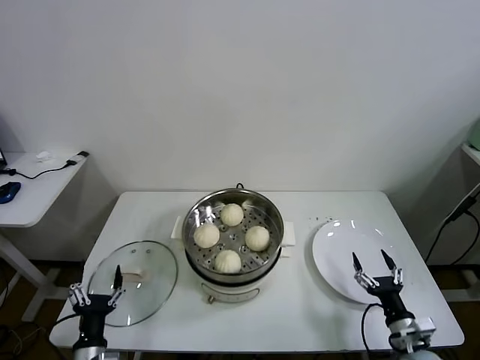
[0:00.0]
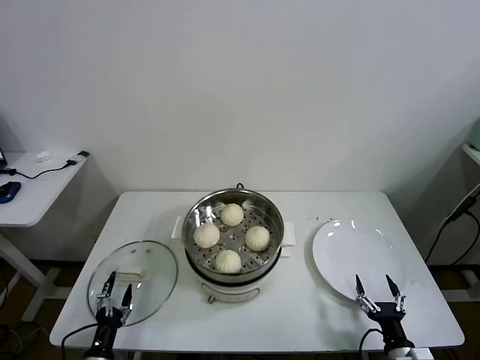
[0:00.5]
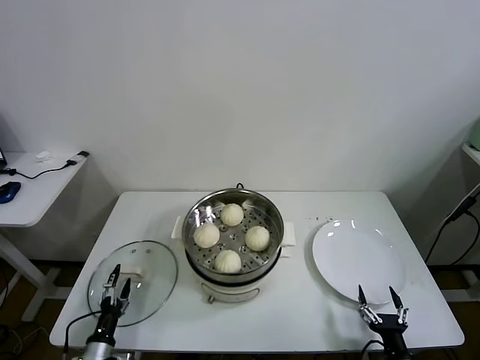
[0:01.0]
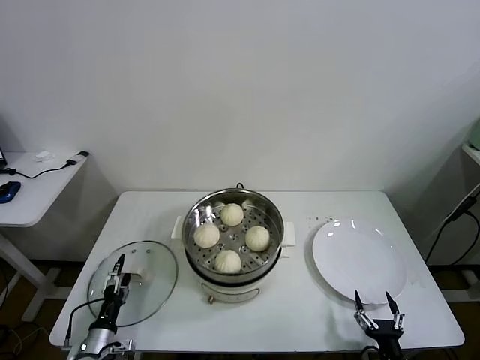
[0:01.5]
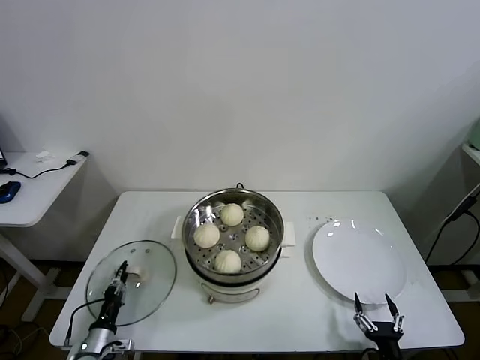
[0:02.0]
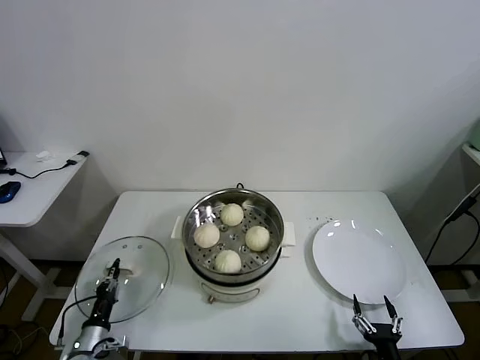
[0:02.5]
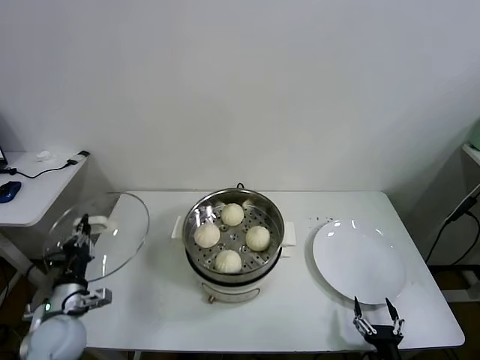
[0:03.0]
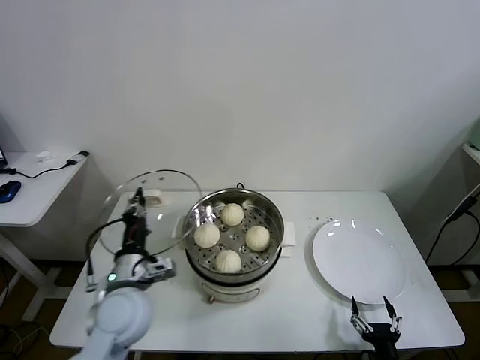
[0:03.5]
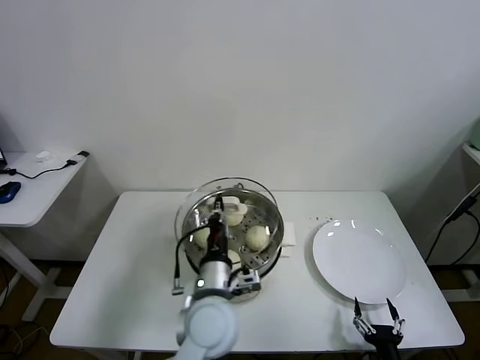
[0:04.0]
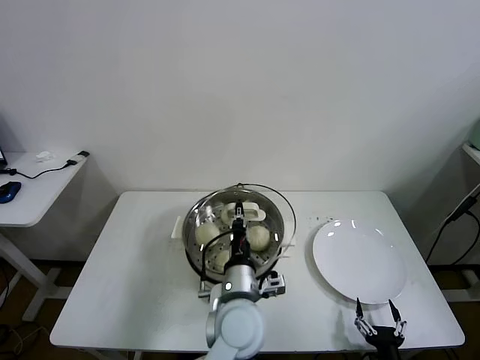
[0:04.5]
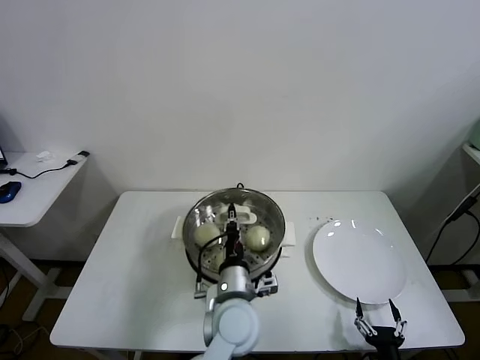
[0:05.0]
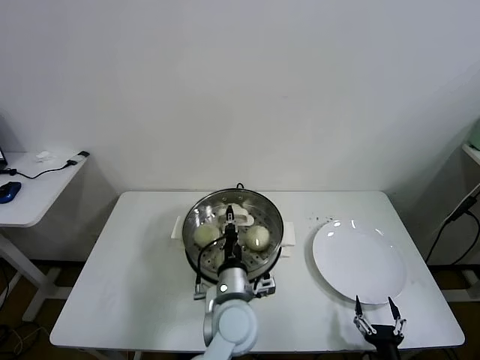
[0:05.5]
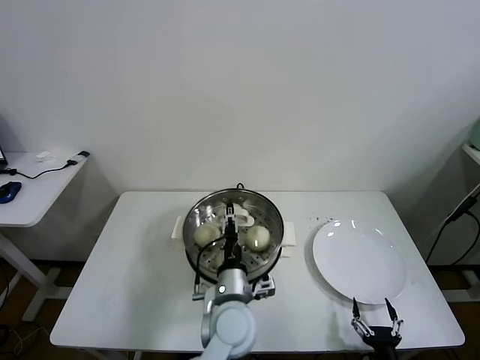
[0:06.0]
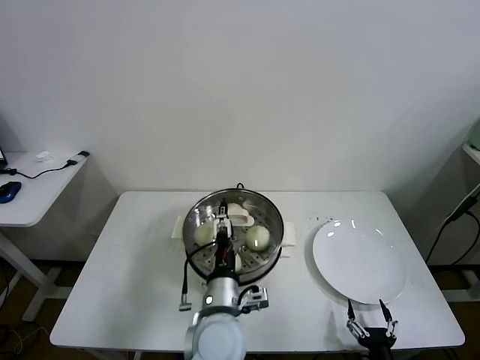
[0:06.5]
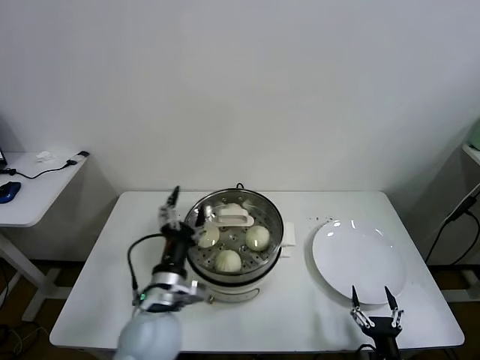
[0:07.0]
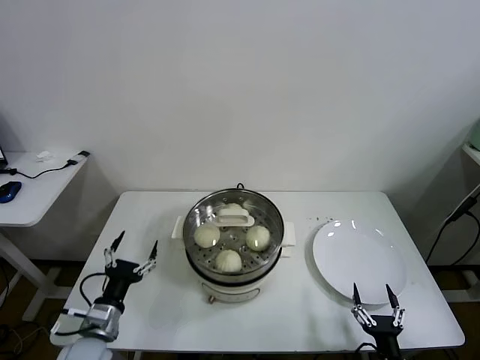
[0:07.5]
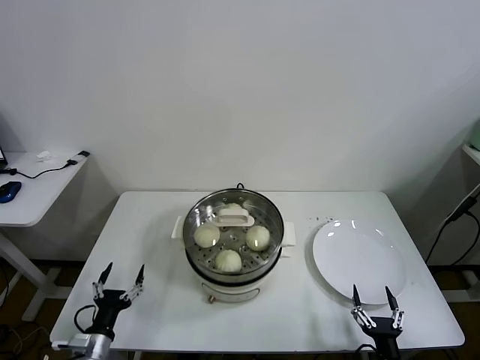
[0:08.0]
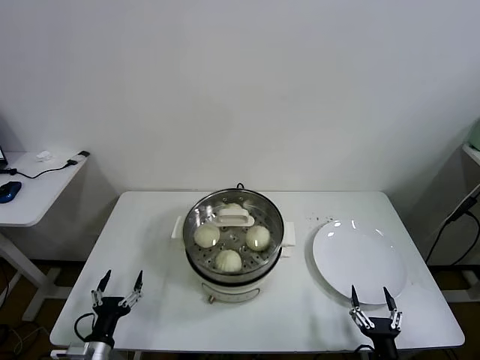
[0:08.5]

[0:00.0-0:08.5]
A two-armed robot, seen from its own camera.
Task of the whole recording: take steamed baozi put them in steamer.
Step, 0:00.0 to 0:02.0: Grasp the pot lid with left gripper.
Step, 0:02.5 to 0:06.0: Place the pot lid on the steamer with left gripper.
0:00.0 to 0:02.0: The right gripper travels backward and downward by some 10 cm, while the left gripper is displaced downward, to the left and forward by roughly 10 cm, and closes.
0:02.0 to 0:04.0: The left gripper is displaced to the right and upward by approximately 40 cm.
0:04.0 to 0:06.5: The left gripper opens its fingers.
0:06.5 to 0:08.5: The left gripper is displaced to the left and downward by roughly 35 cm.

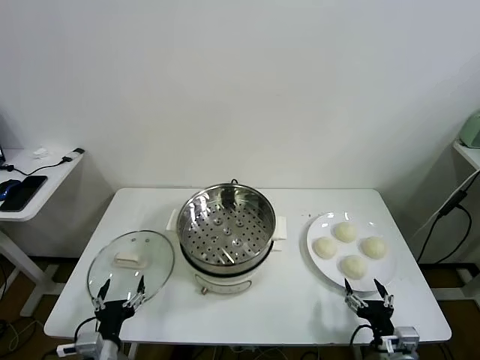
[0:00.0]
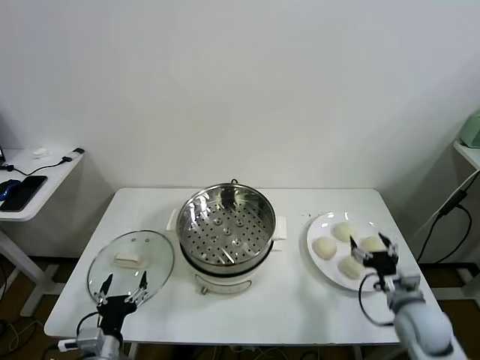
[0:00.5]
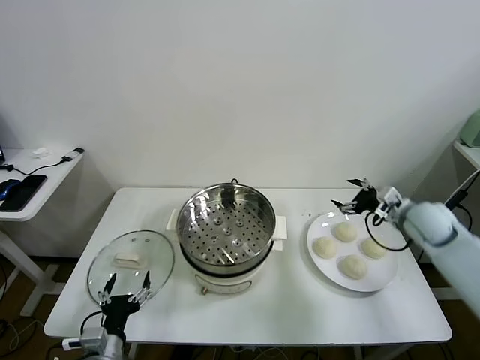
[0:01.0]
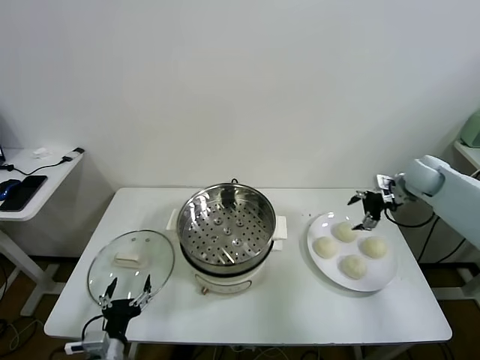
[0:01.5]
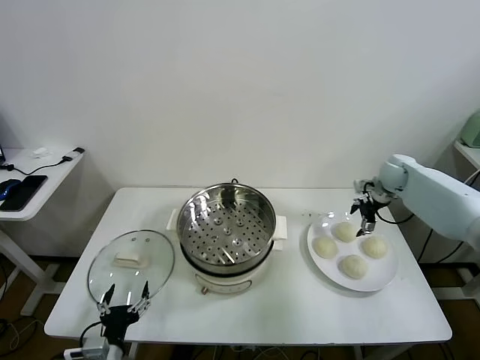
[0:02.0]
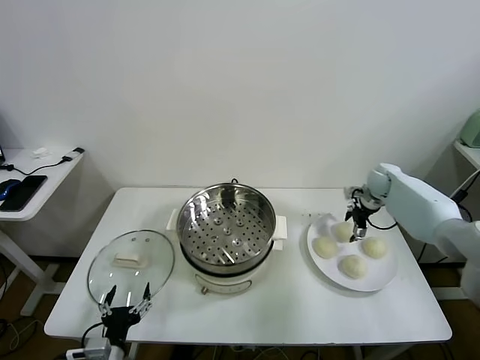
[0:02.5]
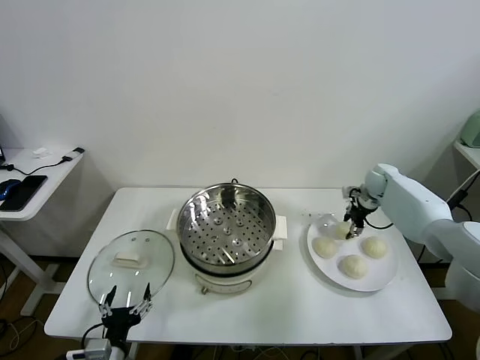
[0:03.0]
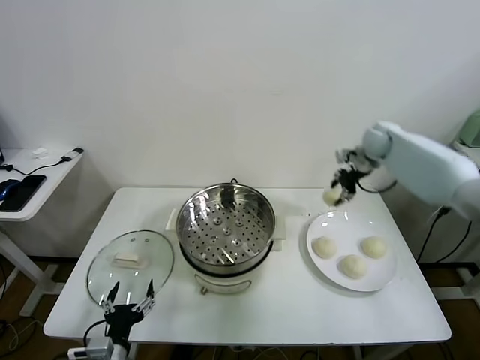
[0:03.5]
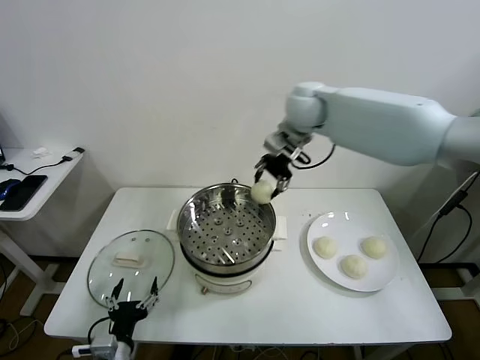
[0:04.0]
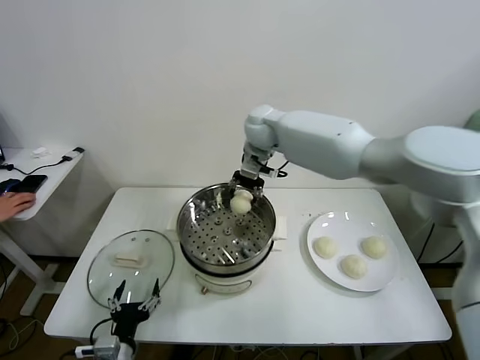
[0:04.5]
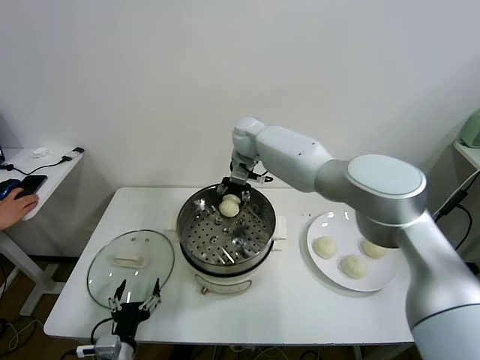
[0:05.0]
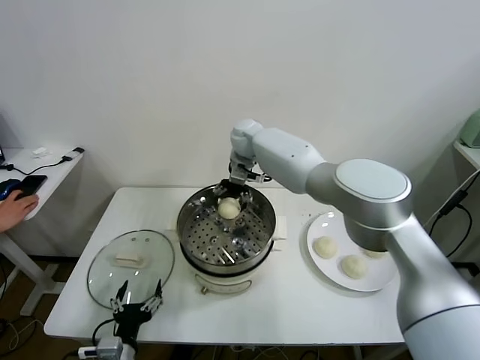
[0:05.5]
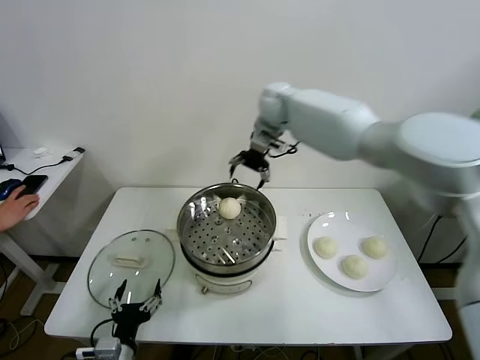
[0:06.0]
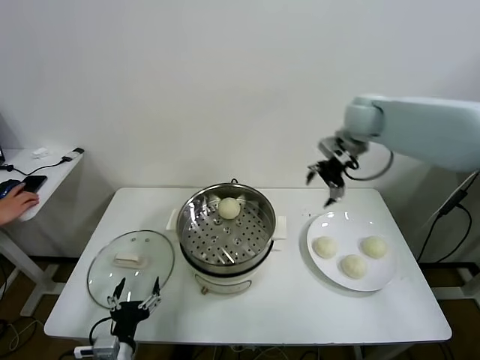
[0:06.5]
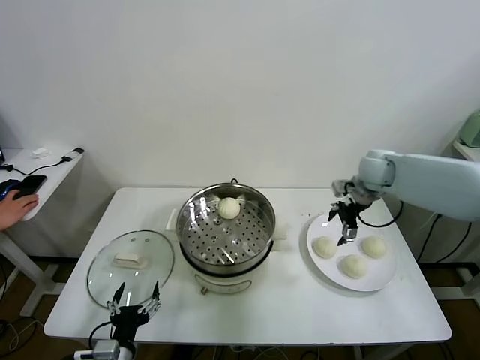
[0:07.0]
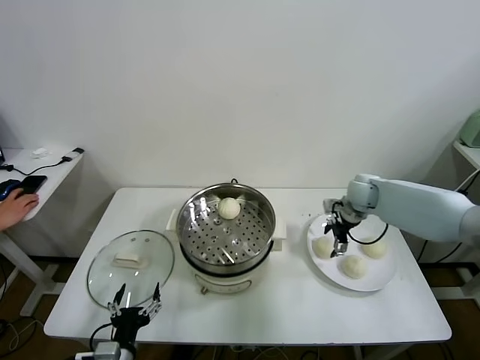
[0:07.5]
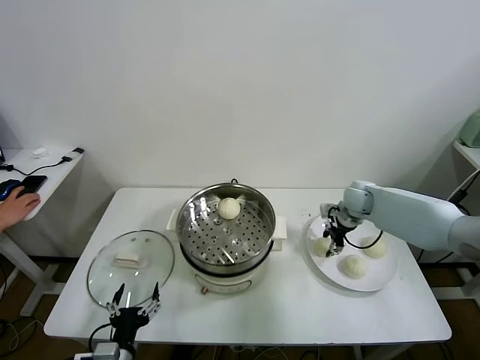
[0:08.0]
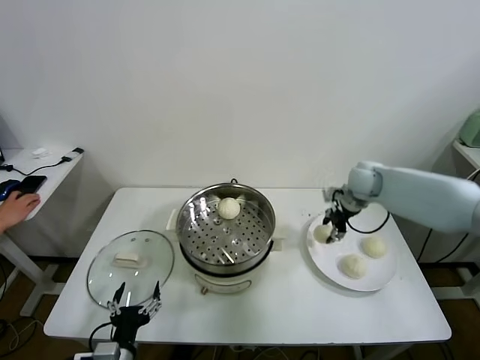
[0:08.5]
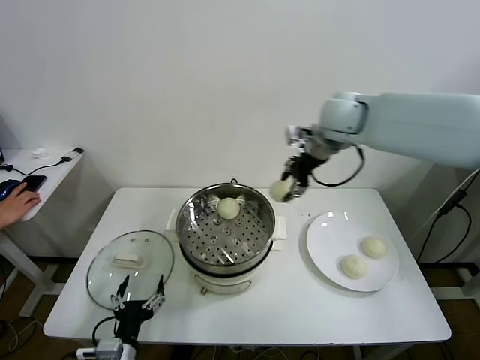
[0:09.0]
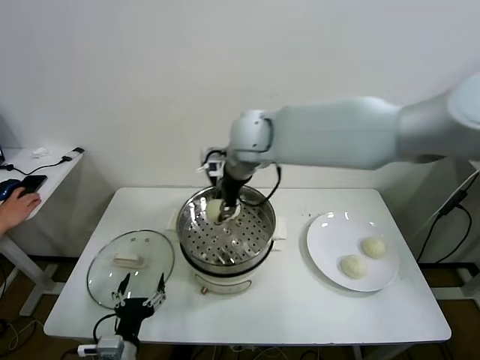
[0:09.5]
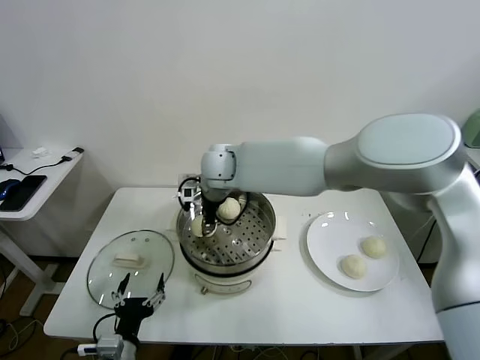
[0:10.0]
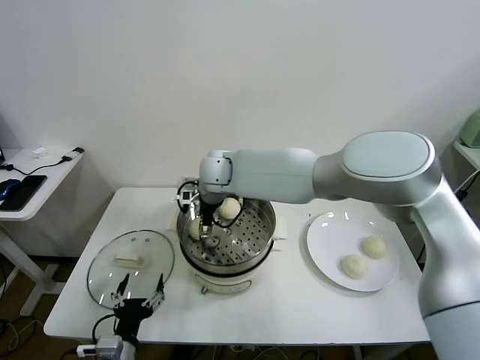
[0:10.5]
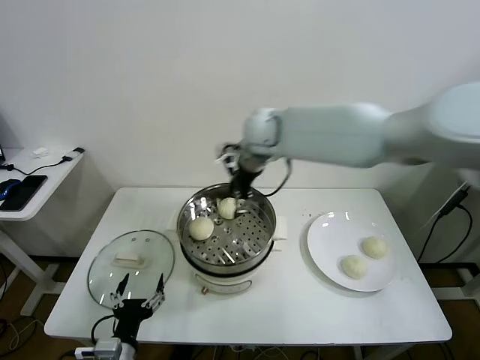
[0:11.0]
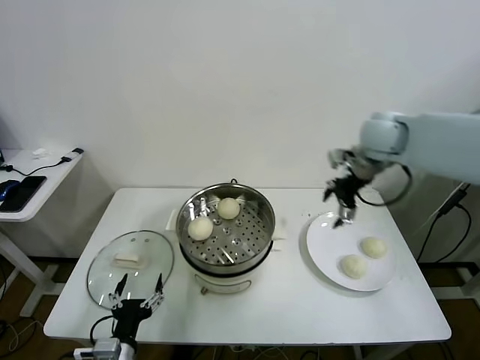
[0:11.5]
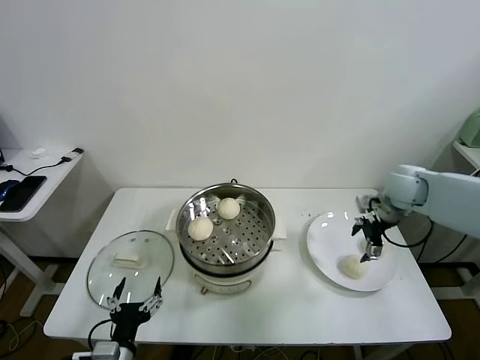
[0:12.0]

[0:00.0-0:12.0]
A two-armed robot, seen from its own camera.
Task of the whole recording: take steamed baozi put them in steamer.
Step, 0:00.0 to 0:02.5: Grasp the baozi in the plate with right gripper.
Step, 0:03.0 to 0:05.5: Place the baozi on the steamer with right gripper.
Step, 0:06.0 to 0:07.5: Grasp the baozi in the plate with right gripper.
Step, 0:08.0 to 0:10.5: Place the baozi on the steamer with right gripper.
0:02.0 to 0:04.0: The right gripper shifts roughly 35 cm to the left and upward, and closes up.
0:04.0 to 0:06.0: The right gripper travels forward by some 5 cm, travels downward and back again, about 10 cm each way, and opens.
0:06.0 to 0:08.0: The right gripper shifts roughly 30 cm downward and to the right, and closes up.
0:08.0 to 0:10.0: The right gripper shifts about 35 cm to the left.
0:10.0 to 0:12.0: The right gripper travels to the right by some 40 cm, and opens.

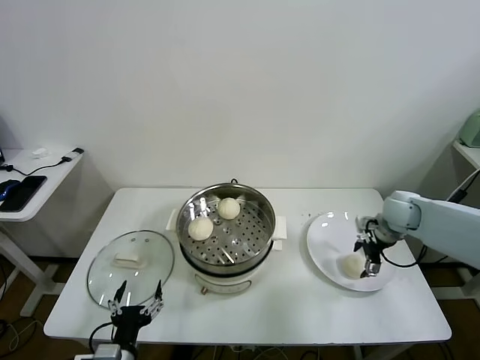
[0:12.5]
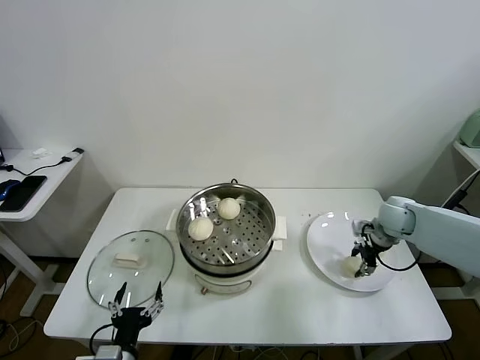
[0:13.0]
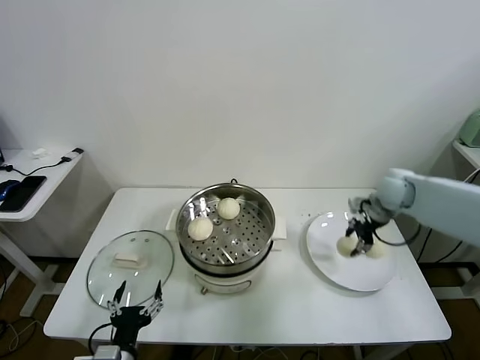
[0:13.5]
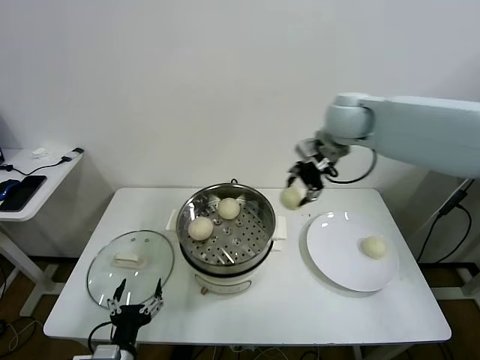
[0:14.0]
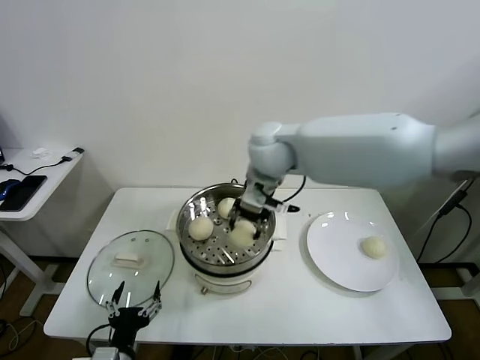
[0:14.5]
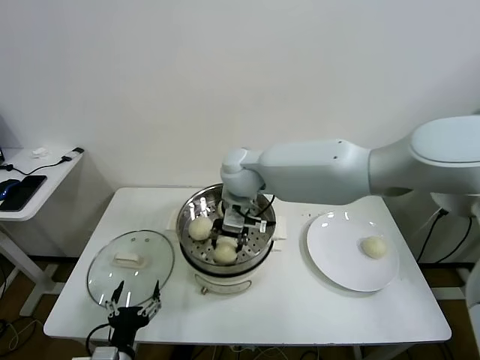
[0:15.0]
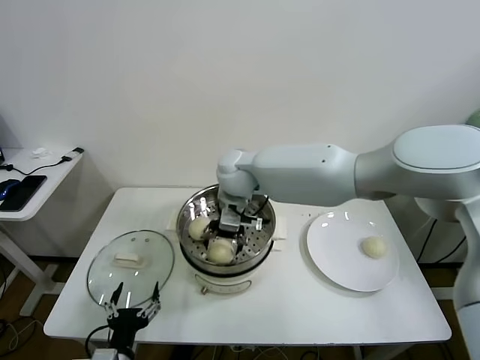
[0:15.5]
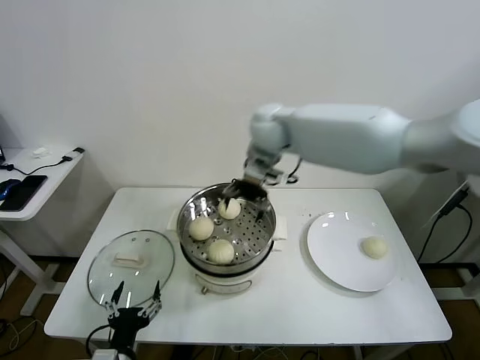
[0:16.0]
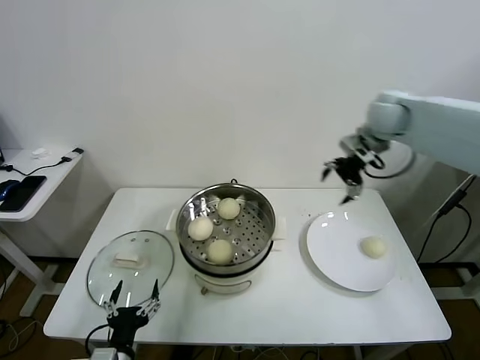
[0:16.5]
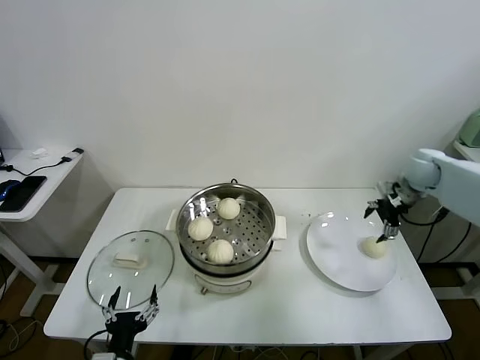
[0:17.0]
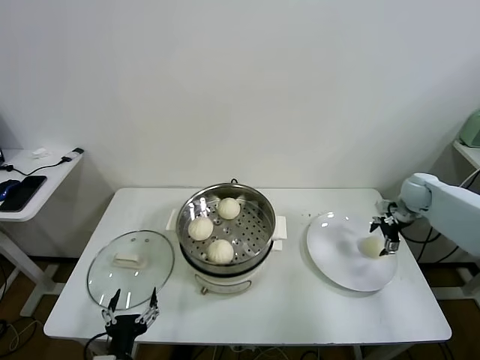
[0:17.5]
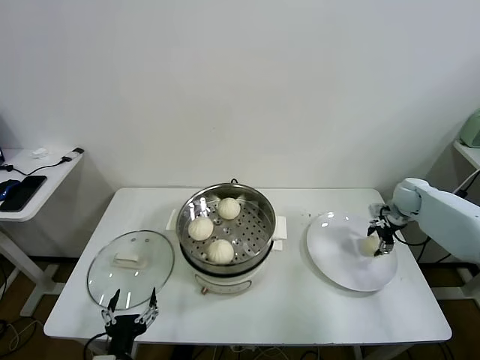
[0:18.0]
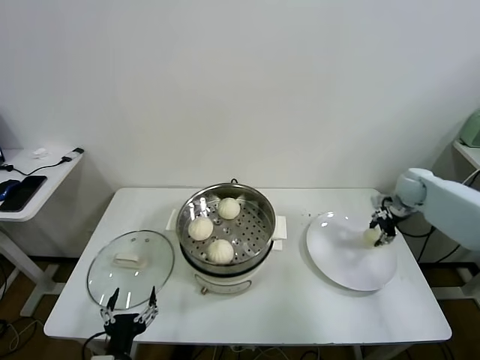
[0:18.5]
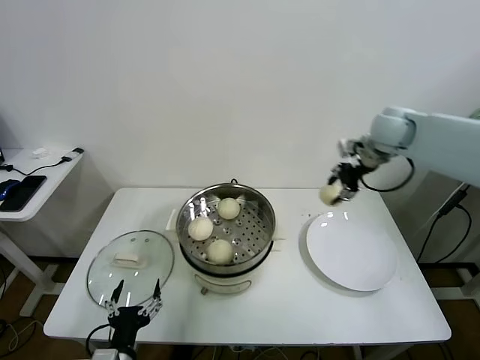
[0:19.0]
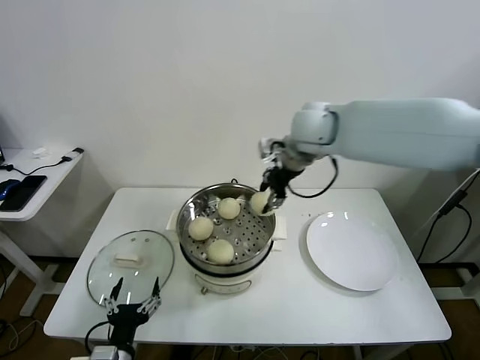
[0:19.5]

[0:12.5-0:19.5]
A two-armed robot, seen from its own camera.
Task of the whole recording: take steamed baozi put them in steamer.
Step, 0:13.0 to 0:15.5: Place the baozi on the steamer with right gripper.
Step, 0:16.0 to 0:18.0: Grasp the baozi in the plate with right gripper.
0:12.5 to 0:14.5: The right gripper moves to the left and upward, some 40 cm, and closes up.
0:14.5 to 0:16.0: The right gripper shifts about 5 cm forward, and opens.
0:16.0 to 0:17.5: The right gripper goes approximately 40 cm to the right and downward.
0:17.5 to 0:19.5: The right gripper goes approximately 40 cm to the left and upward, and closes its fingers.
